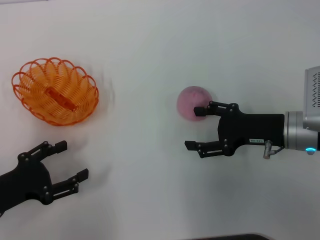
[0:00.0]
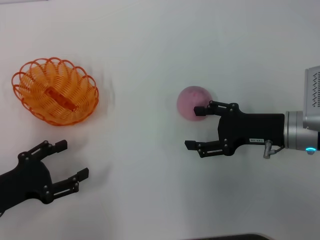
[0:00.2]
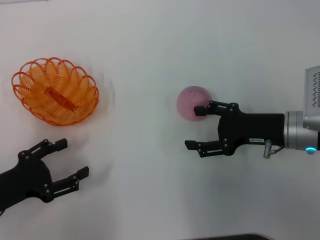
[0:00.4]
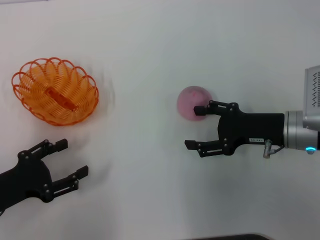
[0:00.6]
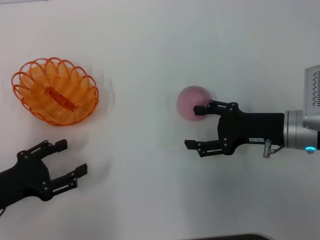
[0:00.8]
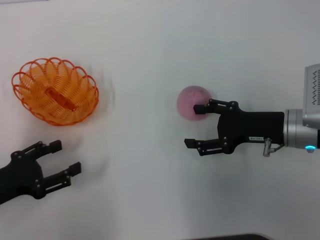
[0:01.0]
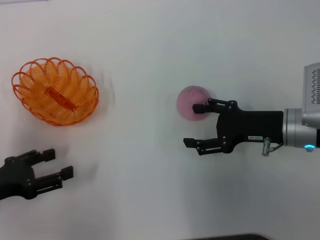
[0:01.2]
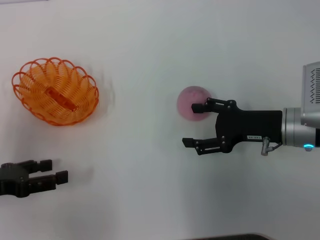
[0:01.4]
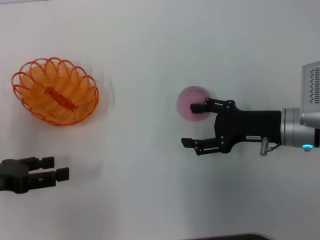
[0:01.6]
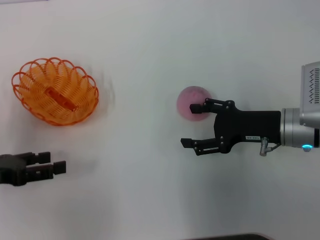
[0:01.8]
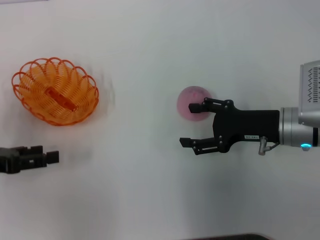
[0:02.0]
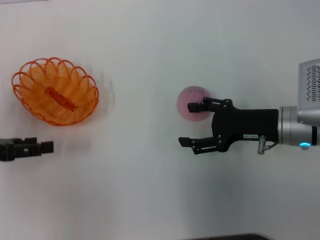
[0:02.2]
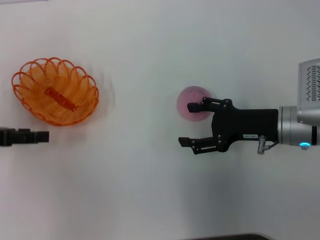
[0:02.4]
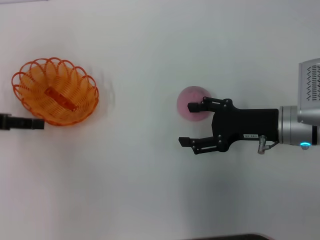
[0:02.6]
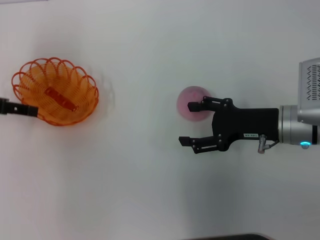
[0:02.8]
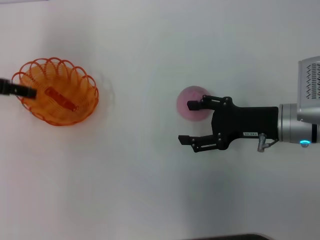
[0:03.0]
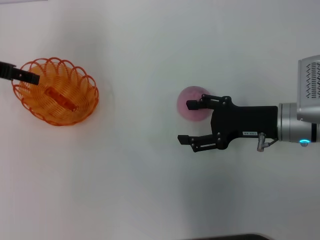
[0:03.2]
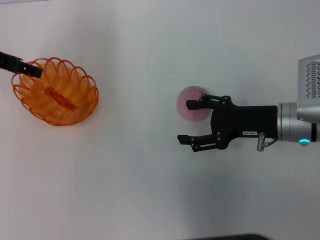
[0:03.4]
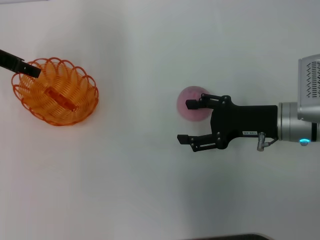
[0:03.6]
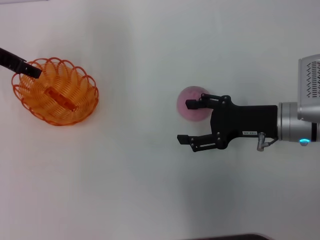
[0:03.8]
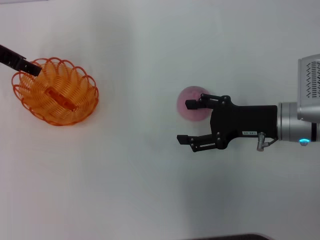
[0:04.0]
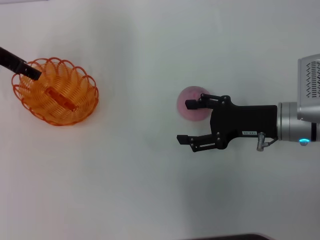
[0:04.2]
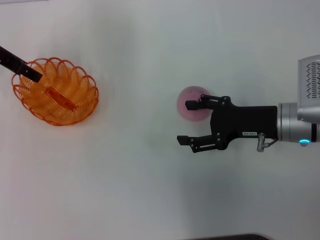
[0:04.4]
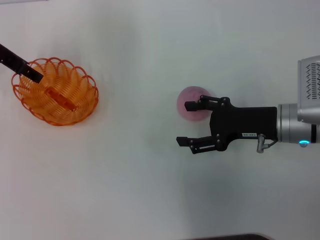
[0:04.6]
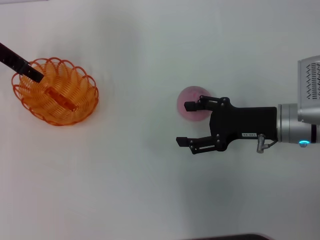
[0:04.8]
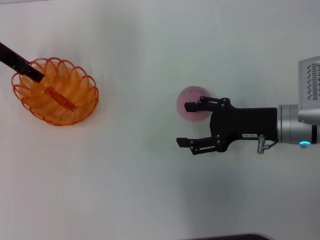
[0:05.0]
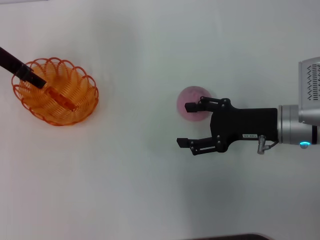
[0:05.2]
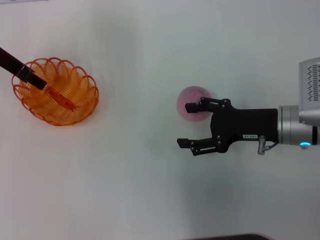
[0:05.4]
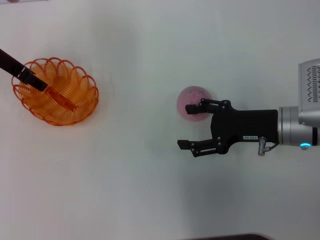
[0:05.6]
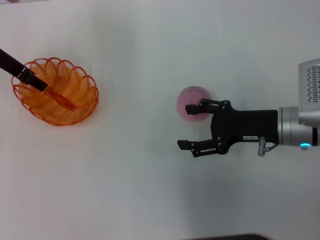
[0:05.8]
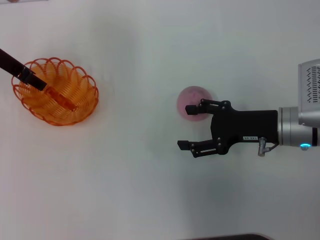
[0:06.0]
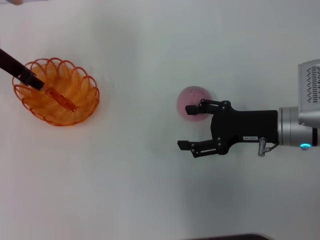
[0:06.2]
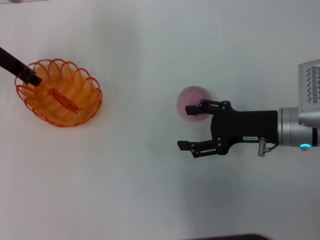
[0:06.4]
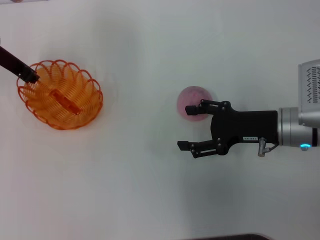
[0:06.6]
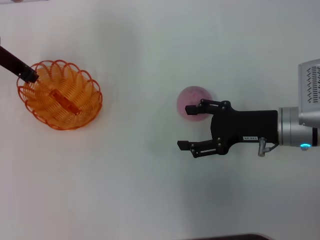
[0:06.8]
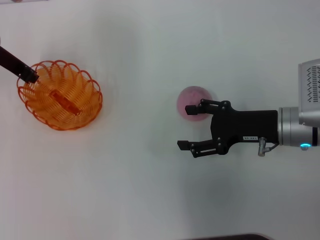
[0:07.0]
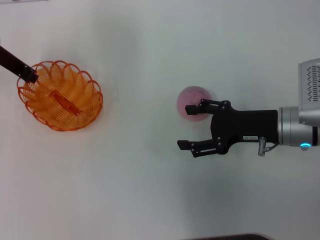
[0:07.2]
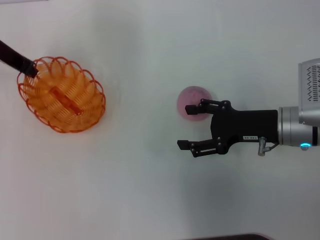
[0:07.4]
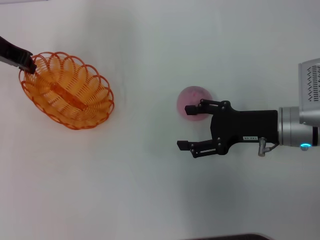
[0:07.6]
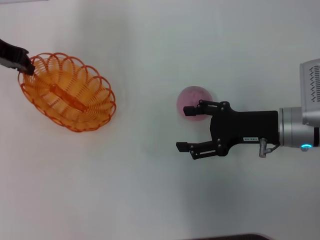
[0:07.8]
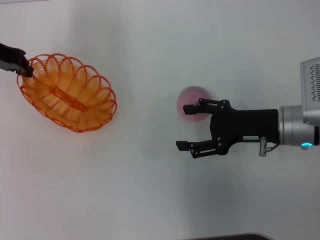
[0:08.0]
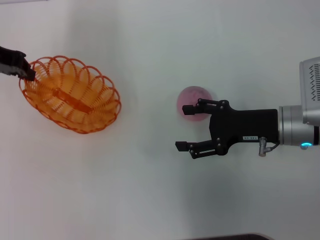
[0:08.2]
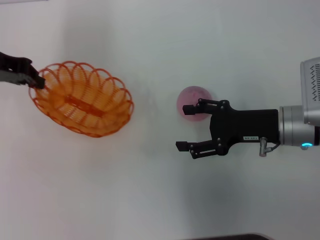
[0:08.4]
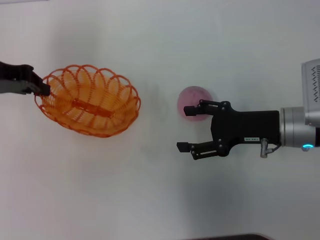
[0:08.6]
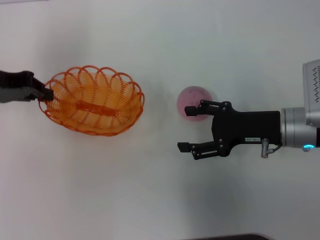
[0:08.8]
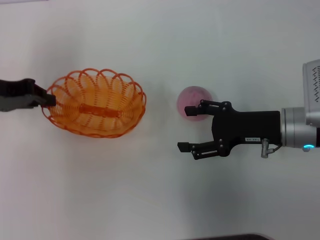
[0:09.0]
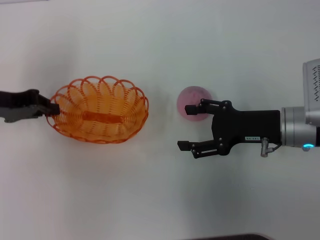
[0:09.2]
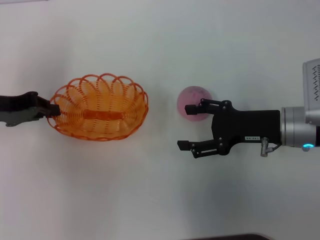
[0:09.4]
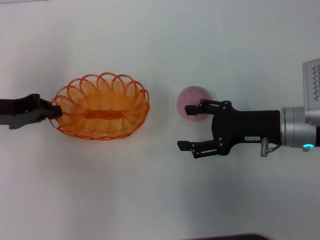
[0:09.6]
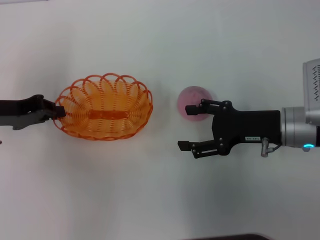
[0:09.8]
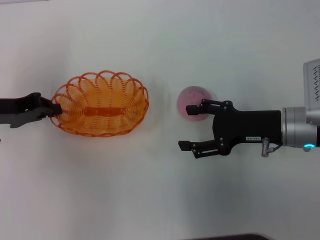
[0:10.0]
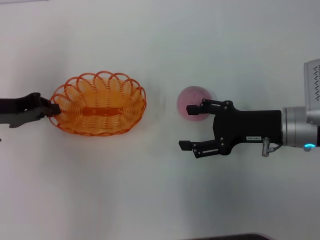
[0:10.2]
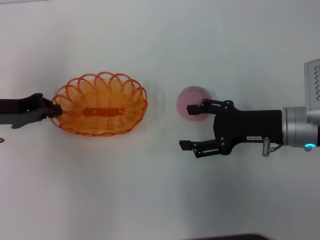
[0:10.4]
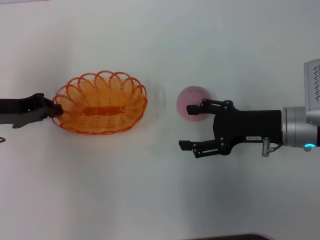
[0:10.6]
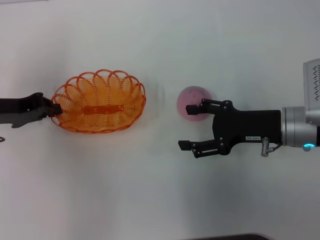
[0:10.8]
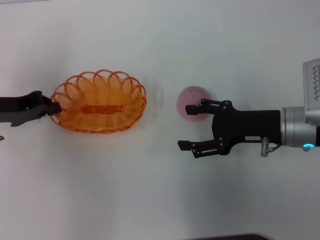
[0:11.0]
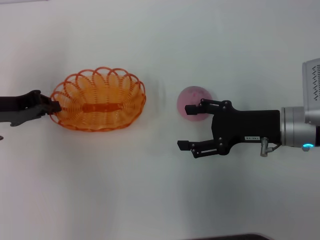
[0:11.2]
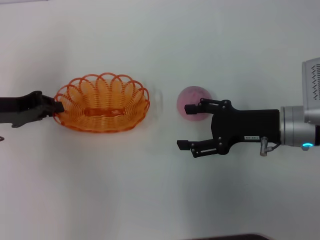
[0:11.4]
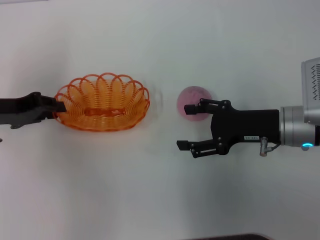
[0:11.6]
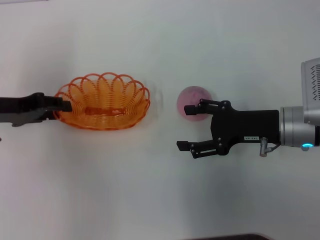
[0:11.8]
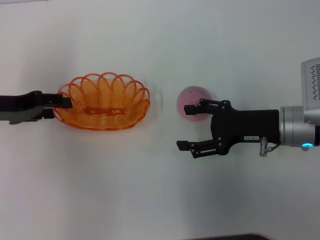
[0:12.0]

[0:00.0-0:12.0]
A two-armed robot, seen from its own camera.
Step, 0:00.0 to 0:07.0: Grab the basket with your left arm.
Step, 0:07.4 to 0:11.4: Put the basket in the middle.
0:00.0 to 0:01.6: The left gripper changes place by approximately 5 cm.
0:01.6 to 0:03.0: The left gripper moves forward and upward, some 15 cm.
0:03.0 to 0:04.4: The left gripper is displaced forward and to the right by approximately 10 cm.
0:04.4 to 0:06.0: The grippers stay close to where they were, moving slightly.
0:06.0 to 0:07.6: The left gripper closes.
0:07.6 to 0:09.0: The left gripper goes some 5 cm backward.
0:09.0 to 0:10.4: The left gripper shifts by approximately 5 cm.
0:10.4 to 0:12.0: The left gripper opens its fingers.

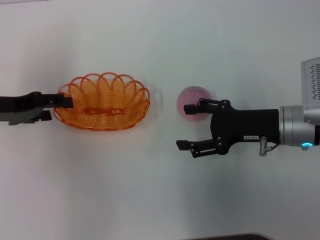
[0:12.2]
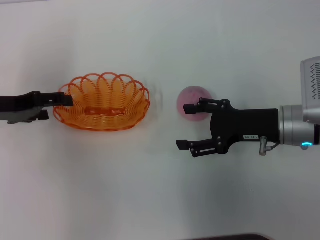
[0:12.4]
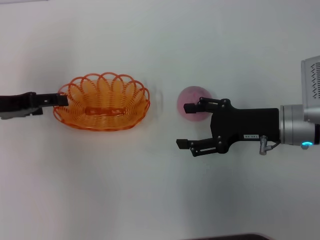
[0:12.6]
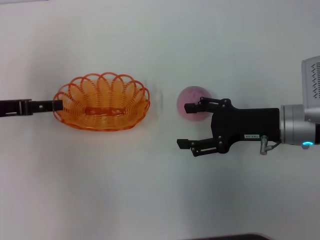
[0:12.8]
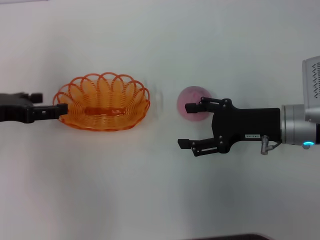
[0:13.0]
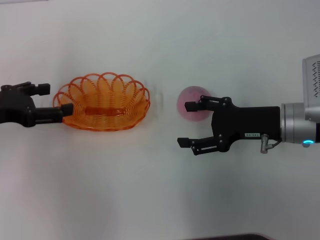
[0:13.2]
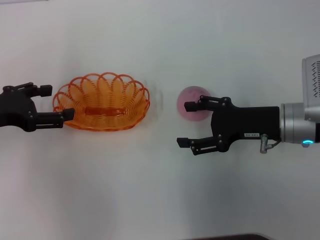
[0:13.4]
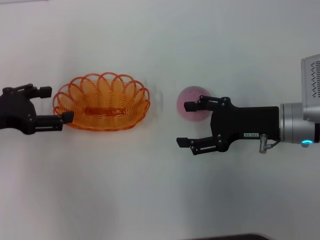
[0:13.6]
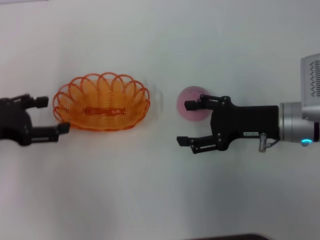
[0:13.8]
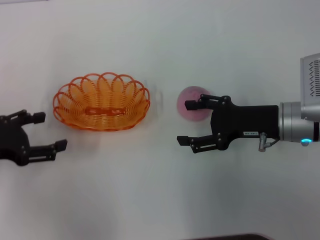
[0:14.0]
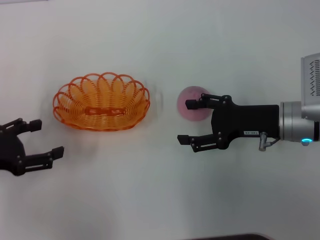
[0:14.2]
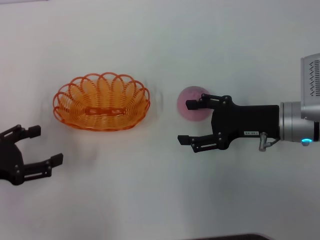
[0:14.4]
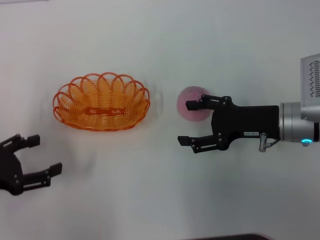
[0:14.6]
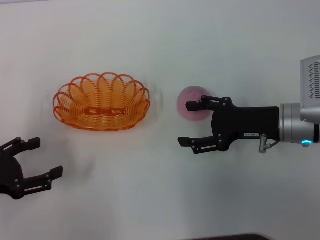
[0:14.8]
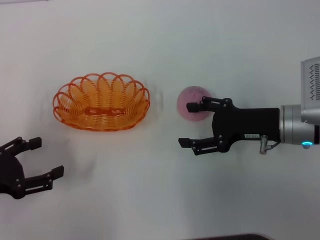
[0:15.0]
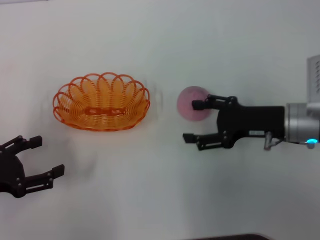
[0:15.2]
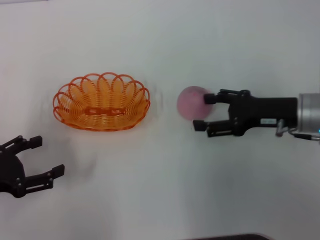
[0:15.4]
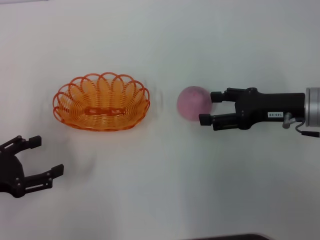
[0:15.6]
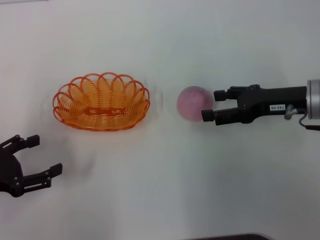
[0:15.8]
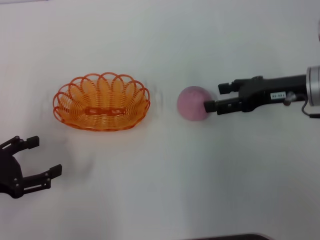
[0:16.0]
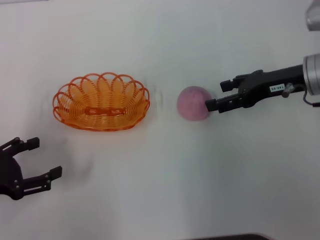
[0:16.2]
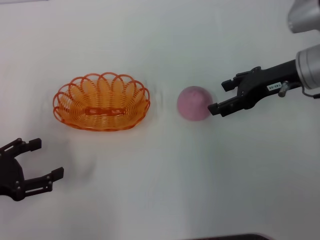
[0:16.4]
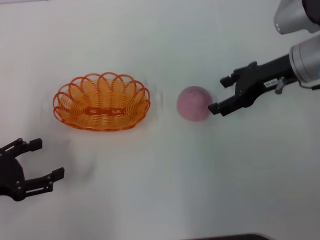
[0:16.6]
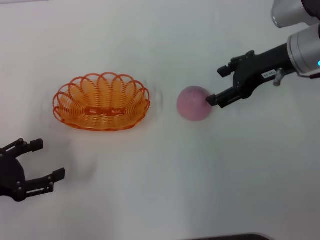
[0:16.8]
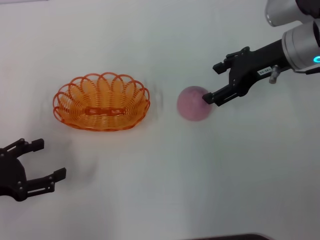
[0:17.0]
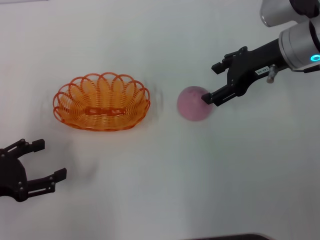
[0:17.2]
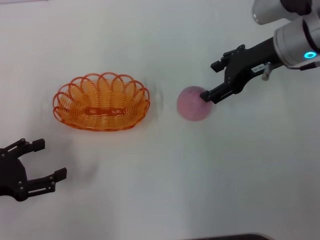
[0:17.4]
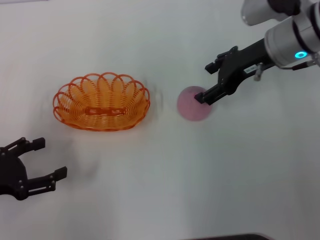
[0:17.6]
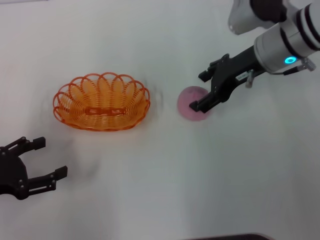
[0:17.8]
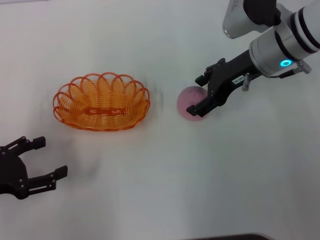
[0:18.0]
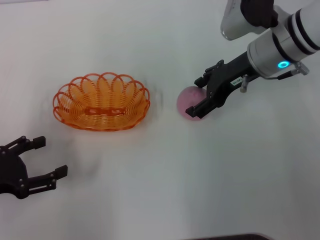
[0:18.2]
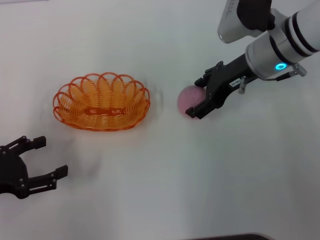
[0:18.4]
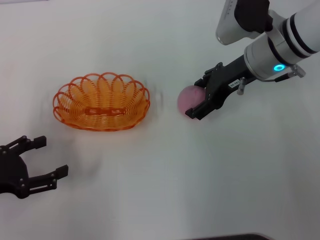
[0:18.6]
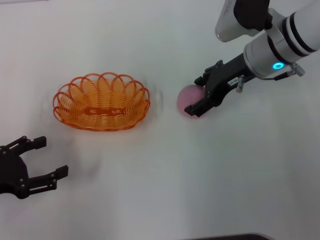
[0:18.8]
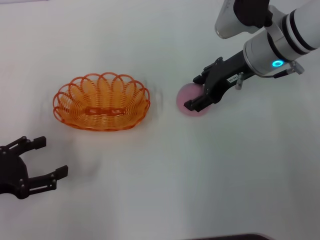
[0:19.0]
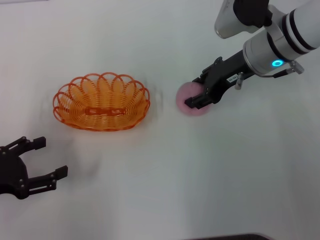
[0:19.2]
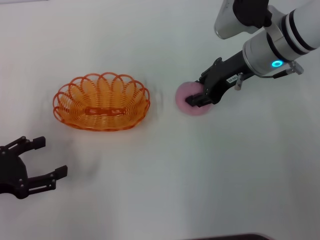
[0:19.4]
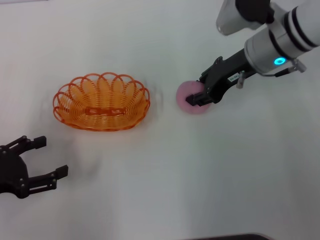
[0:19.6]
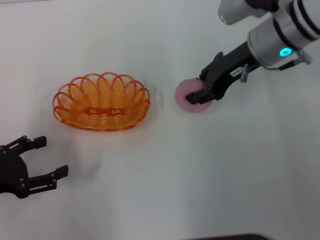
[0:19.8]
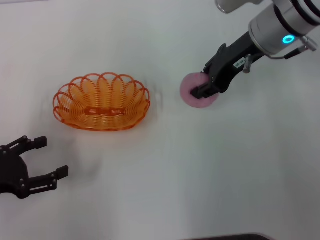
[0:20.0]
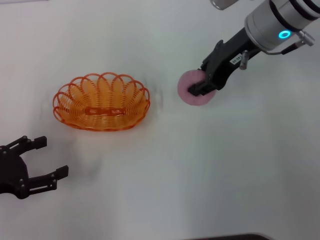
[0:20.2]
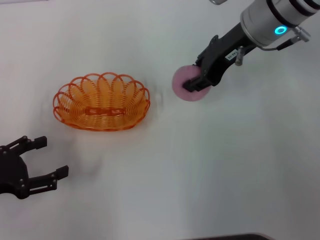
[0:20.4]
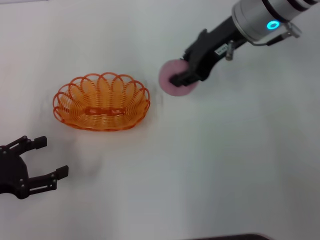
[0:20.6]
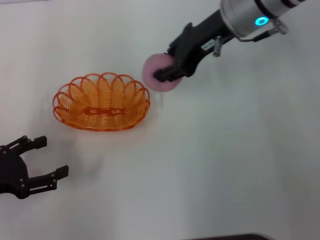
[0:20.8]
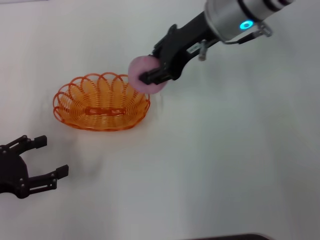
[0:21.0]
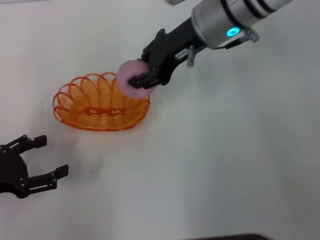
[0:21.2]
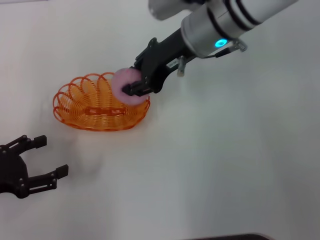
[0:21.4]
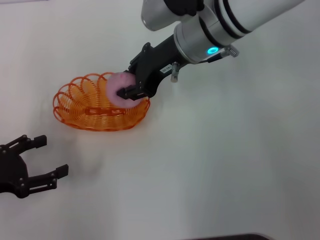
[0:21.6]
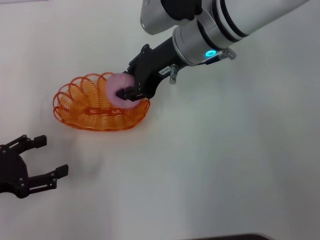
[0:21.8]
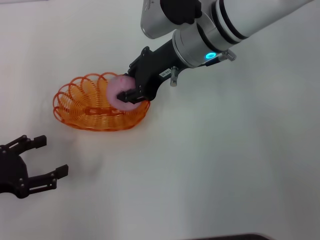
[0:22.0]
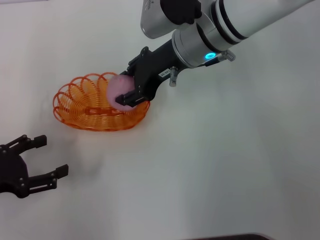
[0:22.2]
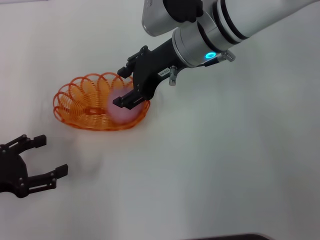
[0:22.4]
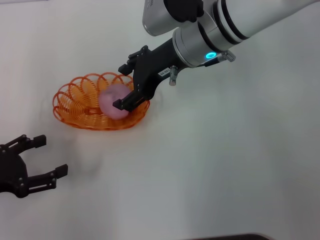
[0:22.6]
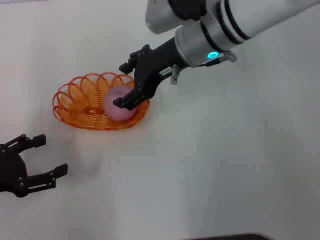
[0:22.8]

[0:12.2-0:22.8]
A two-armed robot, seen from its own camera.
Step, 0:12.2 to 0:19.4: Grab the peach with your right arm.
Step, 0:19.6 to 0:22.4: Put the peach into the basket.
0:12.2 to 0:13.8: The left gripper changes place by some 5 cm.
0:13.8 to 0:15.2: The left gripper heads backward, covering about 5 cm.
0:15.2 to 0:16.8: The right gripper shifts about 10 cm upward and forward.
0:16.8 to 0:18.2: The right gripper changes place by about 5 cm.
0:18.2 to 0:19.8: The right gripper closes.
0:19.8 to 0:21.2: The right gripper moves to the left, some 10 cm.
0:21.2 to 0:22.8: The right gripper opens its fingers.
